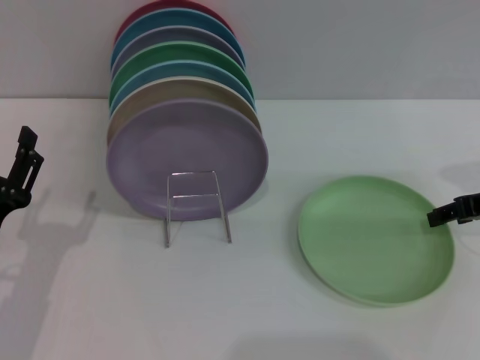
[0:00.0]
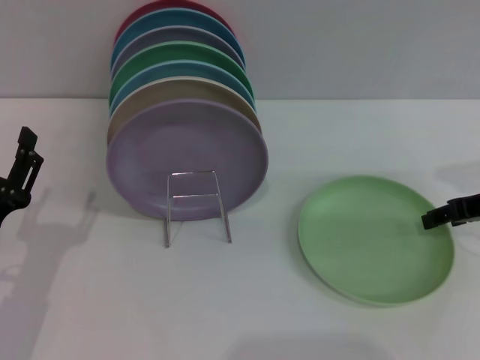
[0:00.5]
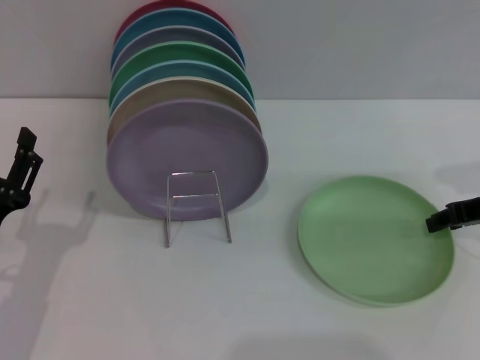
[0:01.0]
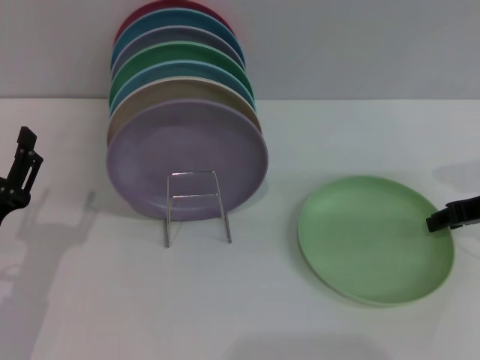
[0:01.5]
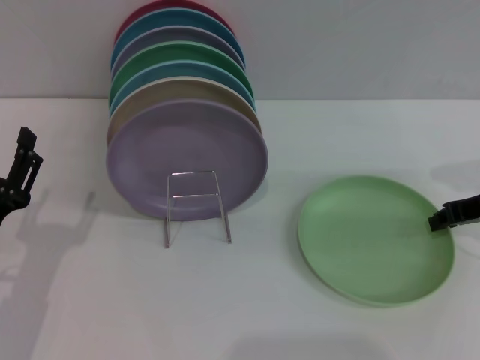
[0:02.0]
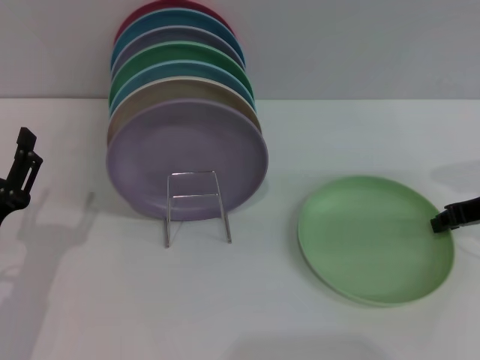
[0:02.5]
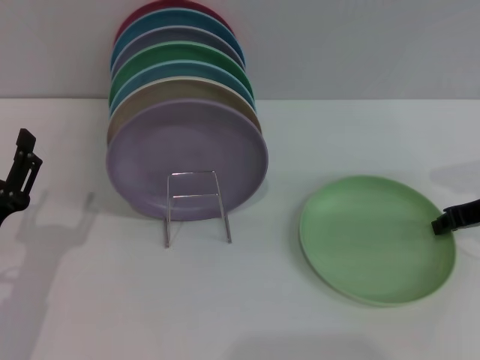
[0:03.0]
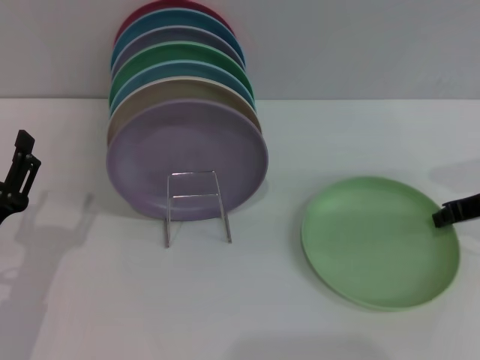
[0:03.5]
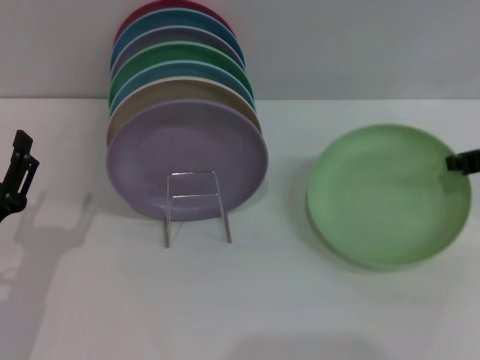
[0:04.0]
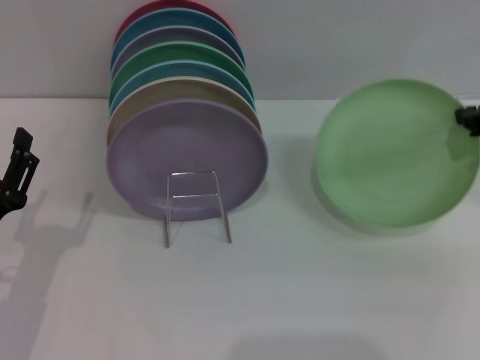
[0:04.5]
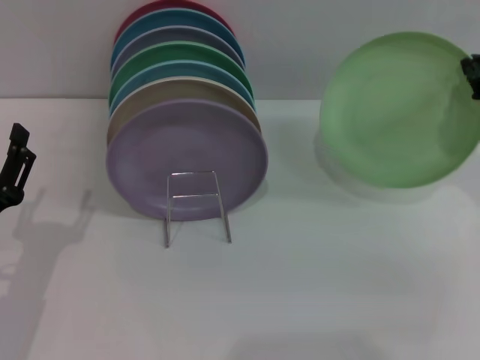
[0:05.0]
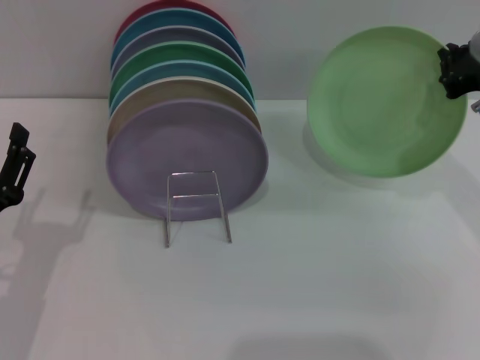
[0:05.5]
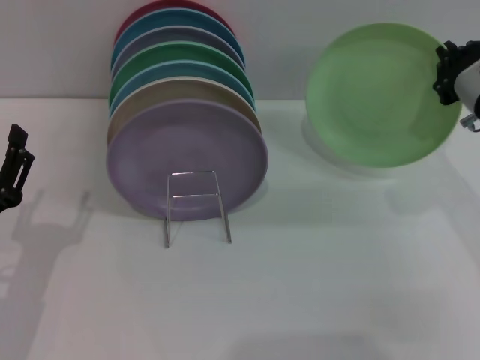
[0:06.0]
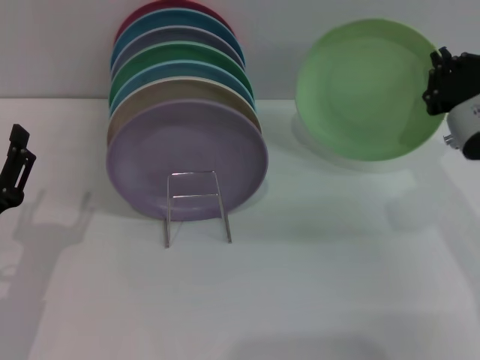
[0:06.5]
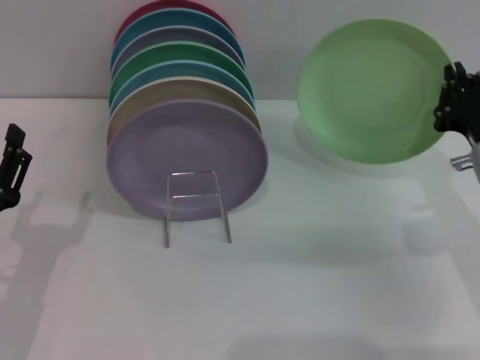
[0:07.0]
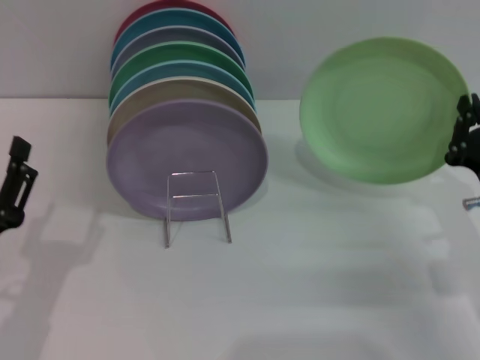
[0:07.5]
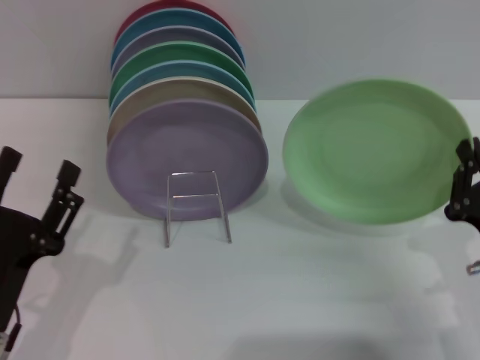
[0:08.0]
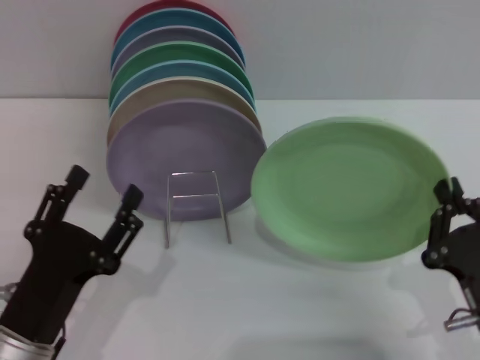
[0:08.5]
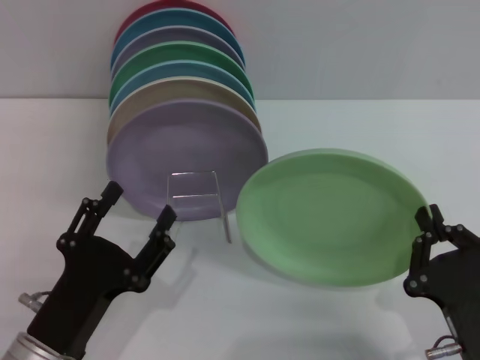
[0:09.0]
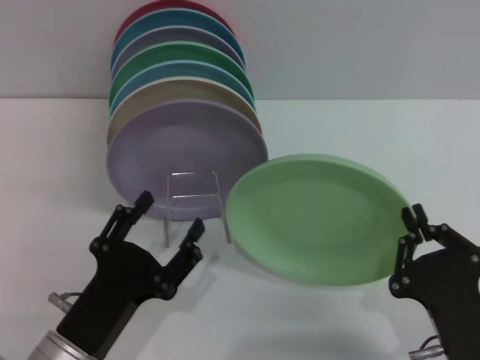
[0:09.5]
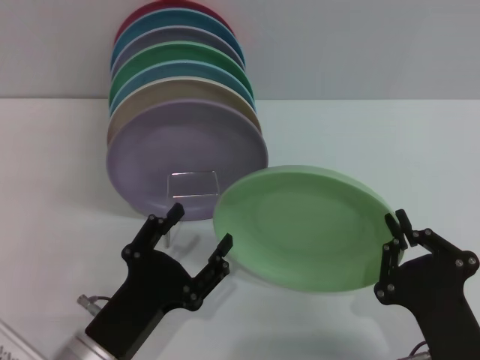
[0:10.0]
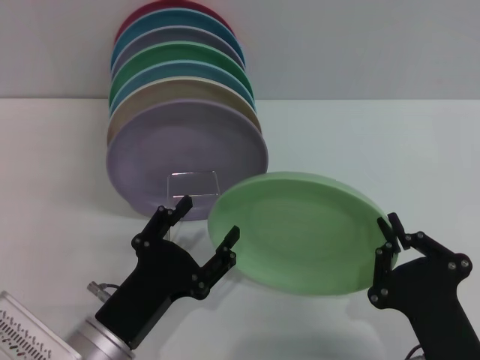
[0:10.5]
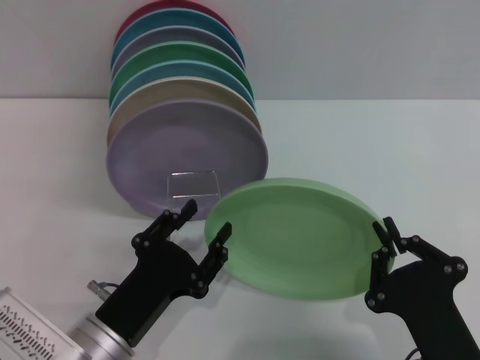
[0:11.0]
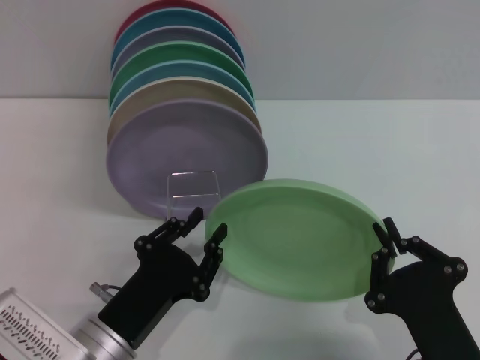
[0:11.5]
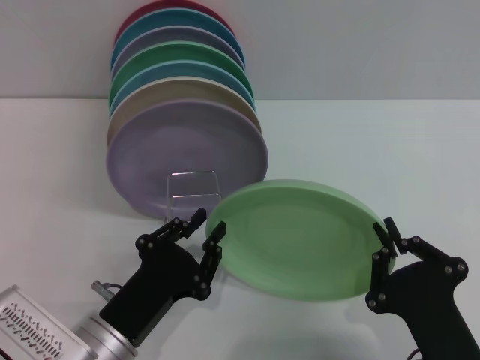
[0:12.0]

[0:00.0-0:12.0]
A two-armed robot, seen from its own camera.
Task of the whole recording: Grip the plate with one hand, pass it to the other, then set it on the shelf.
Step, 0:00.0 to 0:04.5: Pick up the plate with the right gripper.
0:02.0 to 0:04.0: The right gripper closes up.
0:04.0 to 0:06.0: The right gripper heads to the left, covering about 5 cm.
0:06.0 to 0:08.0: The right gripper goes approximately 20 cm backward and downward, while the left gripper shifts by about 5 cm.
0:08.0 to 0:10.0: The right gripper heads to the left and backward, covering approximately 10 cm. The left gripper is displaced to the right by approximately 10 cm.
0:10.0 to 0:12.0: The left gripper closes.

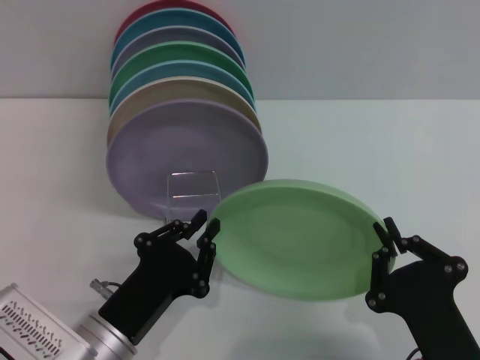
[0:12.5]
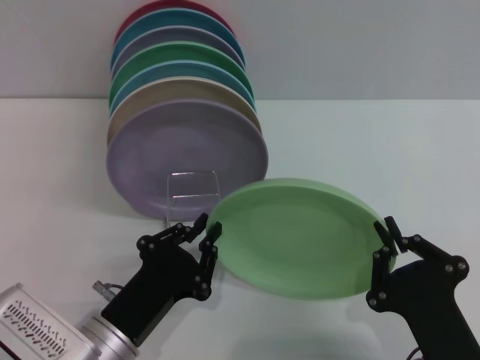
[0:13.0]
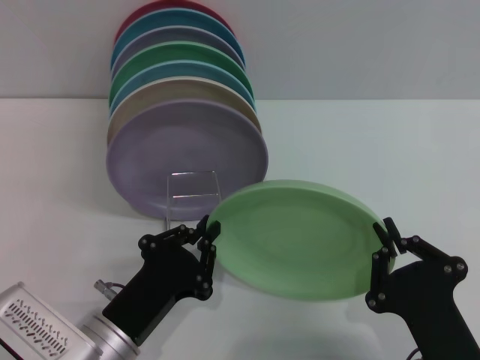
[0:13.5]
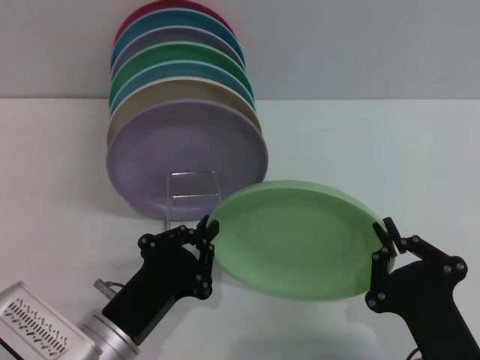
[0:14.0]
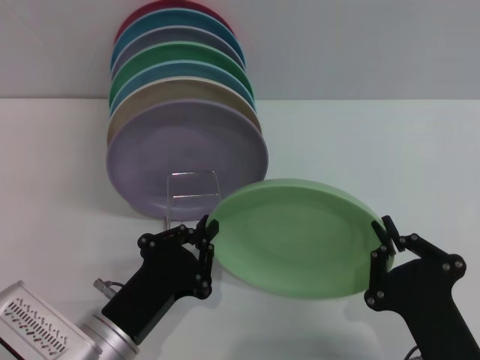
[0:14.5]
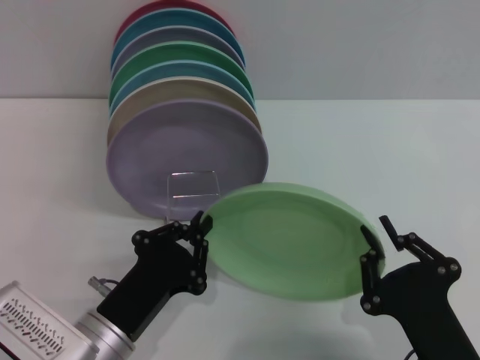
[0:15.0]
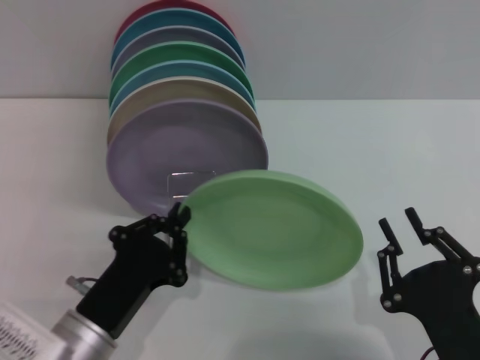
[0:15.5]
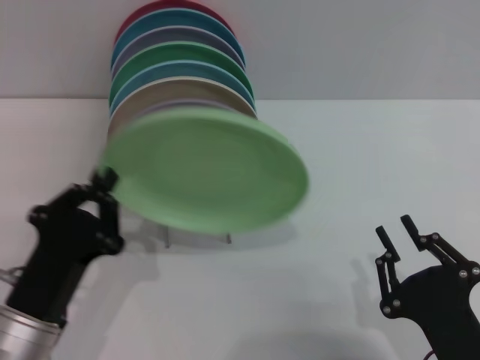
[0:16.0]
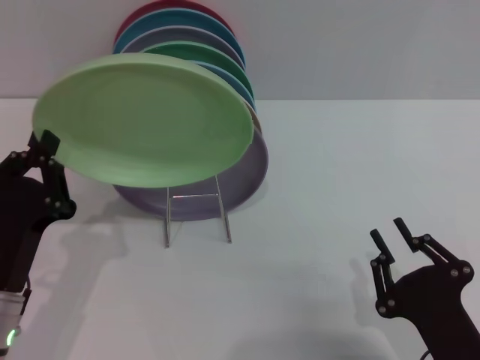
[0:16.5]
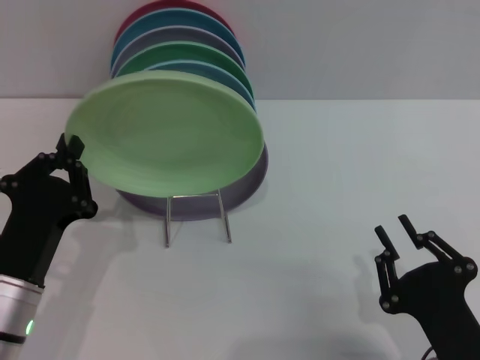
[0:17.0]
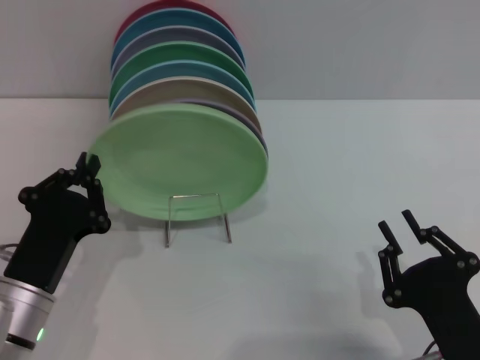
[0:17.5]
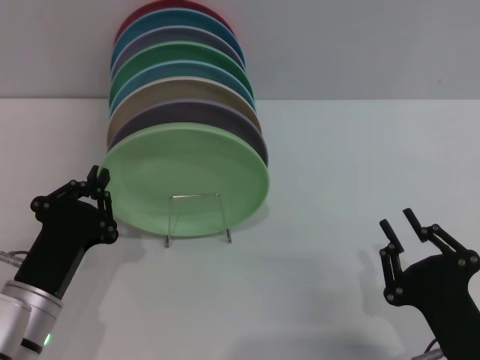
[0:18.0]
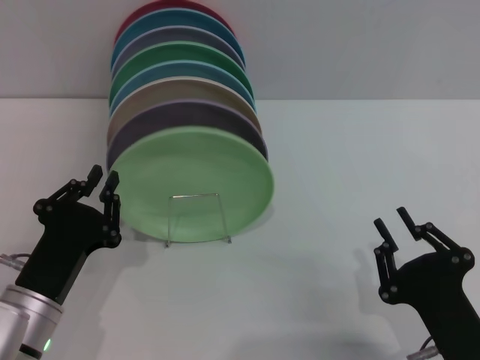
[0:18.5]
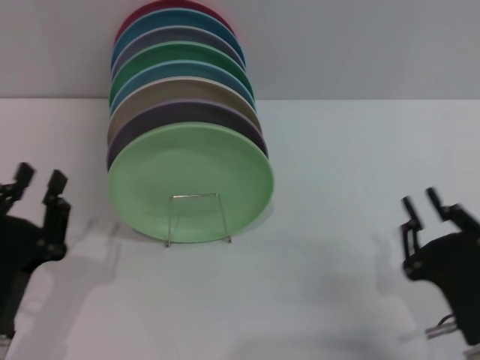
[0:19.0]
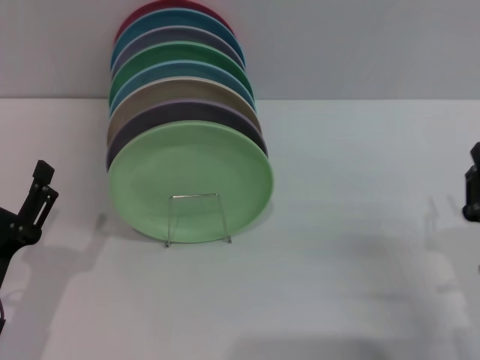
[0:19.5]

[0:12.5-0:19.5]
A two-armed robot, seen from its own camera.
Task of the whole recording: Grip the plate with one hand, pass it to the other, then set it on the shelf.
Step, 0:12.5 to 0:16.0: Pass the plate from the right gripper to the left gripper.
Step, 0:16.5 to 0:18.5: Place the plate on the shelf with the left gripper.
0:12.5 to 0:14.5: Both grippers stay about where they are.
0:14.5 to 0:16.0: The left gripper moves some 5 cm.
0:16.0 to 0:17.5: The grippers make only small movements.
0:17.5 to 0:19.5: The left gripper moves about 5 cm, and opens; the right gripper goes roughly 10 cm forward and to the right.
